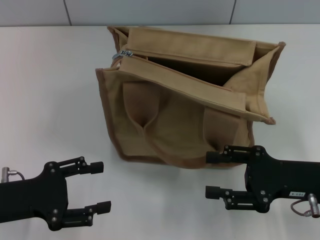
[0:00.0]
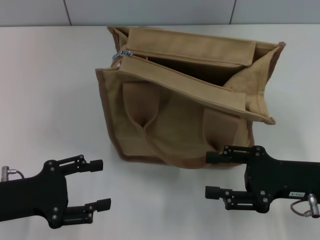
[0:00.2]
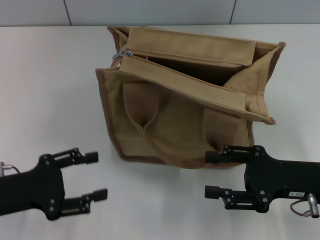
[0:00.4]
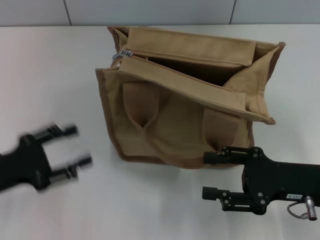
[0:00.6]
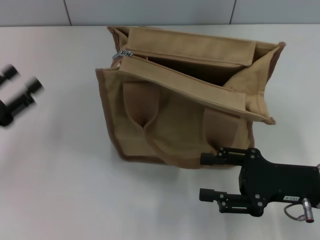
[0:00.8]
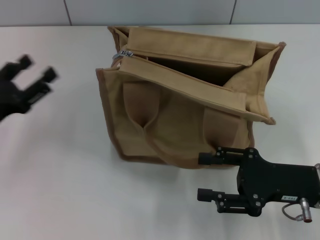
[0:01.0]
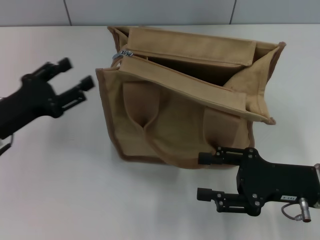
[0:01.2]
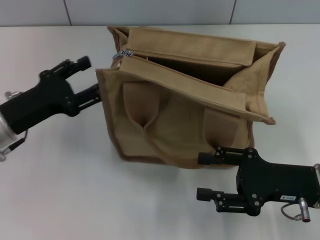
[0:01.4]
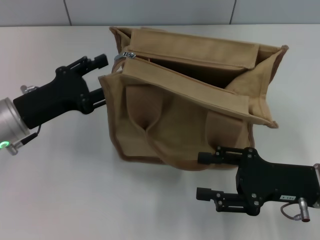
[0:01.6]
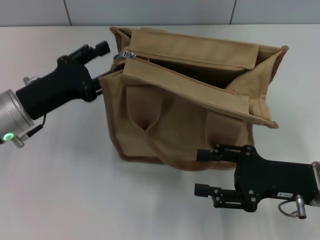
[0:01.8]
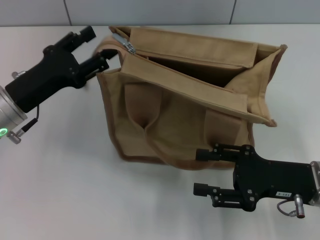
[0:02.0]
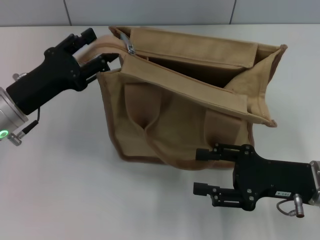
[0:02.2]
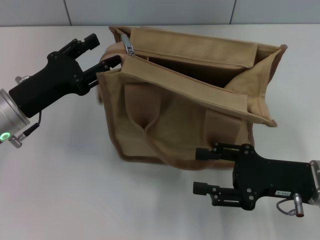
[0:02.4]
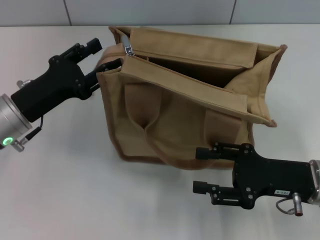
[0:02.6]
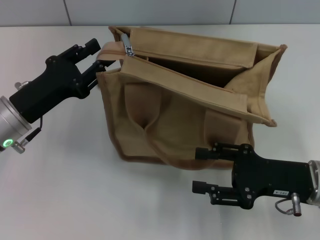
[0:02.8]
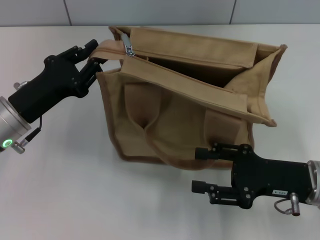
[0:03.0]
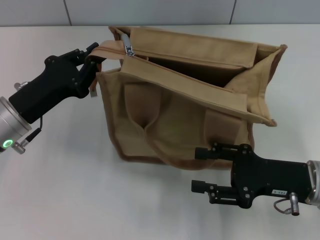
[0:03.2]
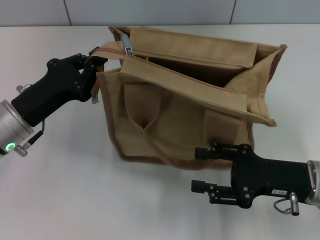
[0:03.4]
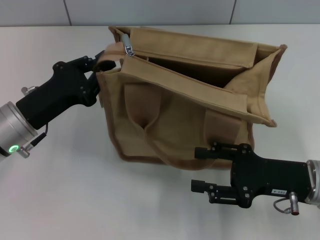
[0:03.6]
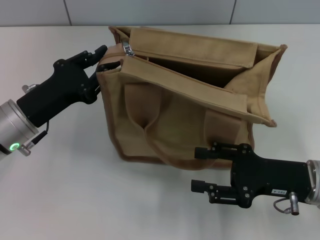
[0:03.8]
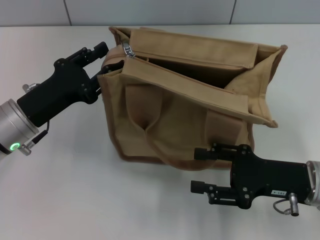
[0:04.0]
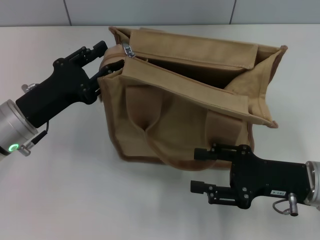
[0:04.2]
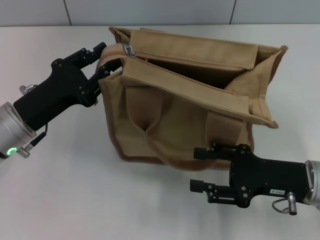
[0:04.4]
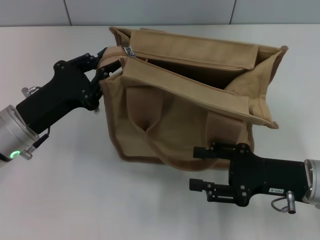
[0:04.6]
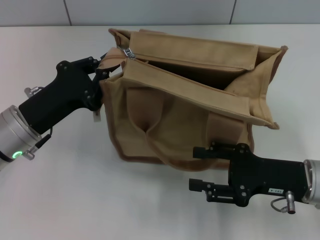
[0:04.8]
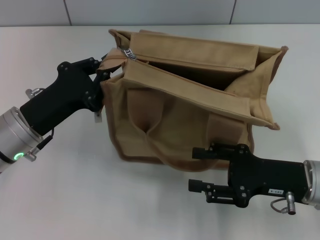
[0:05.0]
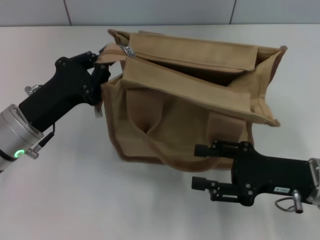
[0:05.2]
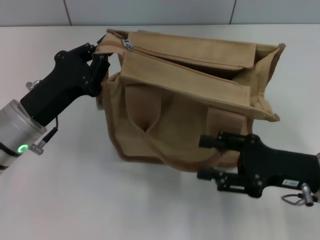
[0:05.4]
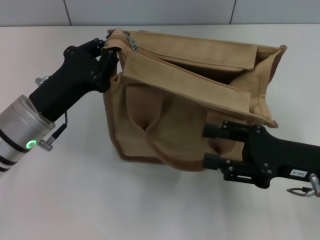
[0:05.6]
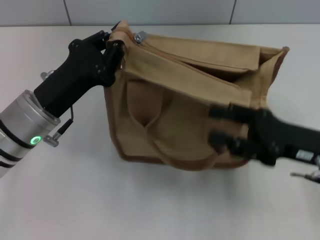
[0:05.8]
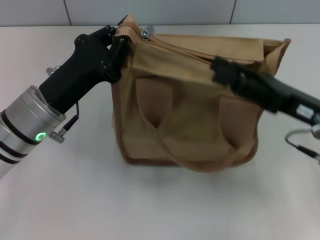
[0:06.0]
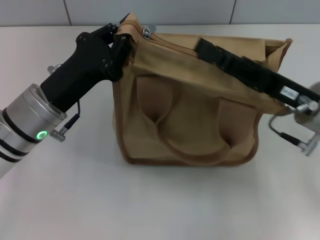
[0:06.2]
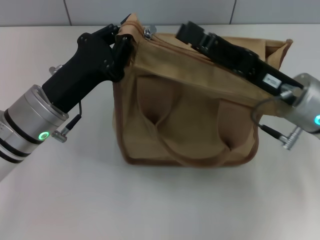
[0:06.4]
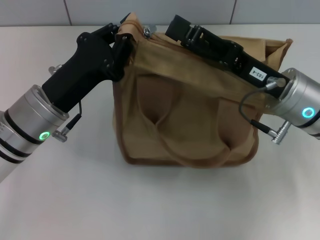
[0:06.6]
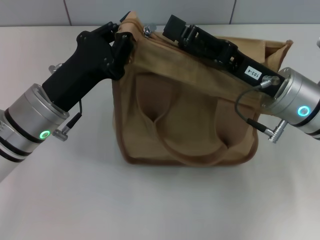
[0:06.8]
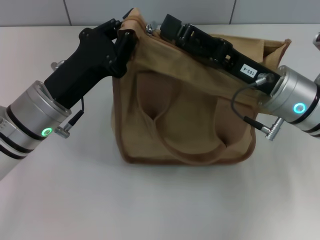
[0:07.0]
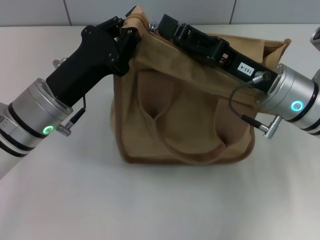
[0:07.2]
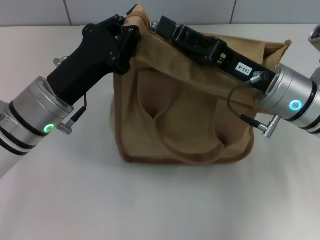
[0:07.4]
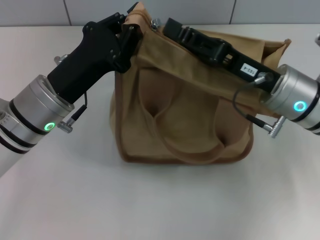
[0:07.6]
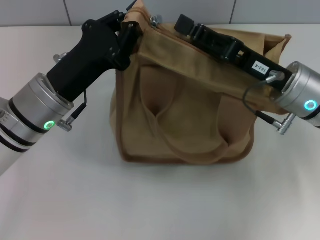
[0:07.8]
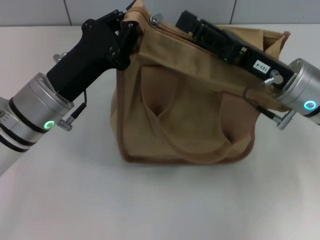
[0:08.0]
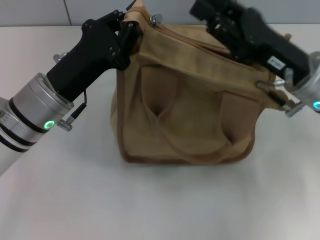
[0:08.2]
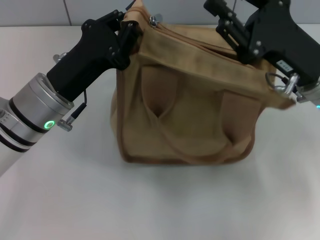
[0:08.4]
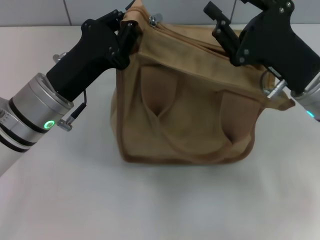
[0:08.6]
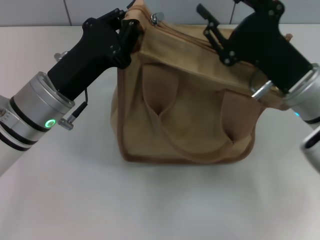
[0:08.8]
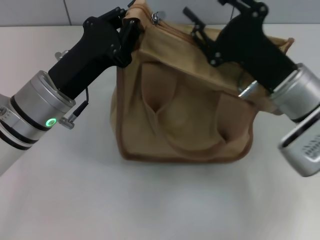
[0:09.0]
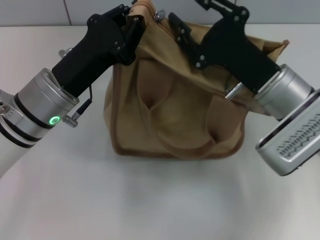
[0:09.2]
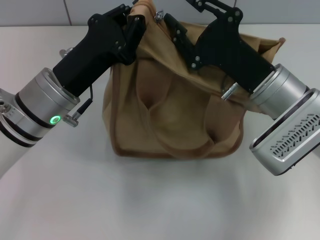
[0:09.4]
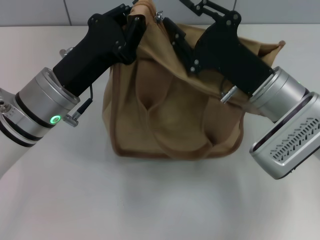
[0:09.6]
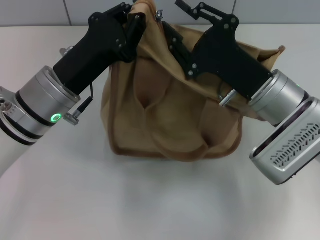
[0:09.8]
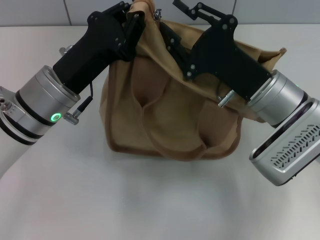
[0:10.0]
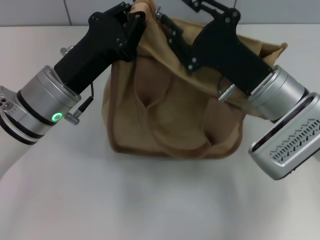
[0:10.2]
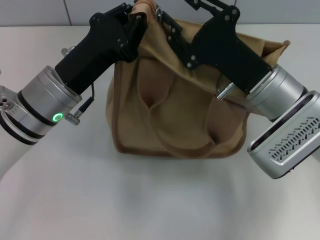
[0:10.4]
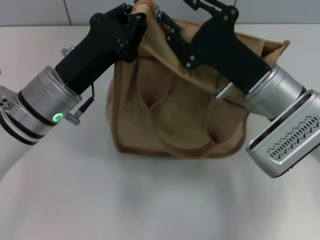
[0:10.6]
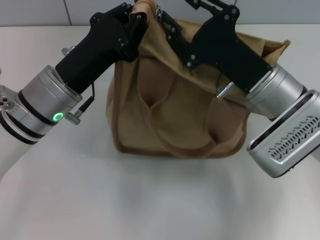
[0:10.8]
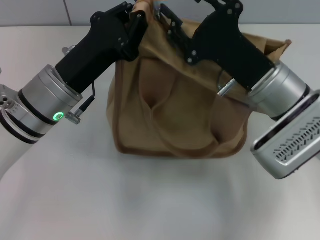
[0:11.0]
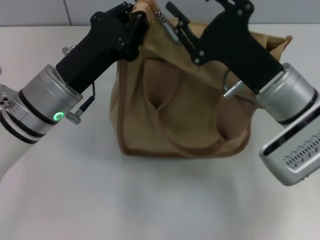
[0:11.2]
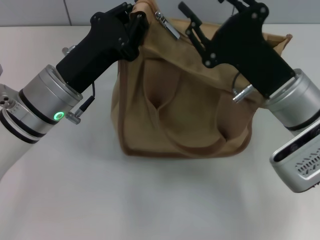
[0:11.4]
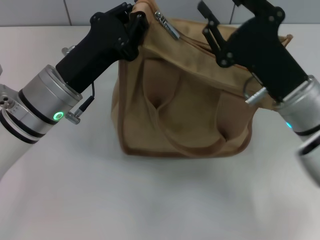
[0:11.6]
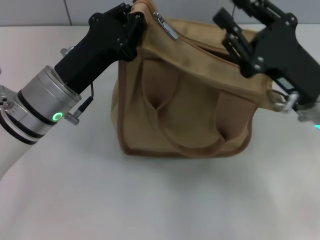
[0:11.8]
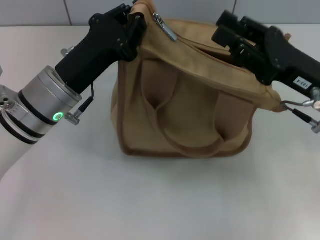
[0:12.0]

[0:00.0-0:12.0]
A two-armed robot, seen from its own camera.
0:00.0 to 0:01.6: The left gripper moves forward, approximately 10 cm.
0:01.6 to 0:03.0: The left gripper closes its fingers.
0:03.0 to 0:04.4: The left gripper closes, then reopens.
0:04.4 to 0:06.0: The left gripper closes its fingers. Meanwhile the right gripper goes some 5 cm upward.
0:06.0 to 0:07.6: The right gripper moves to the left, roughly 5 cm, and closes.
0:10.4 to 0:12.0: The right gripper goes roughly 10 cm to the right.

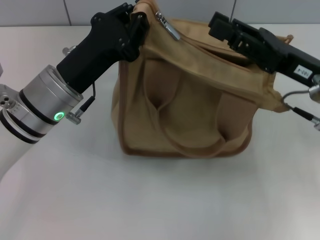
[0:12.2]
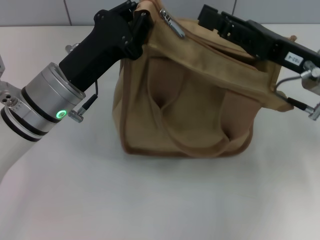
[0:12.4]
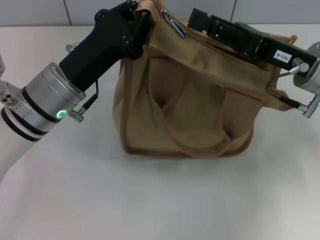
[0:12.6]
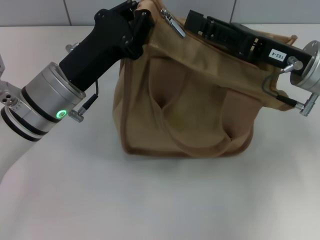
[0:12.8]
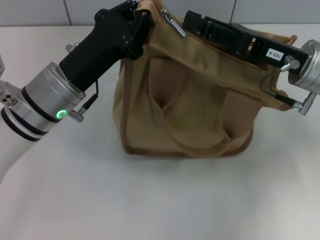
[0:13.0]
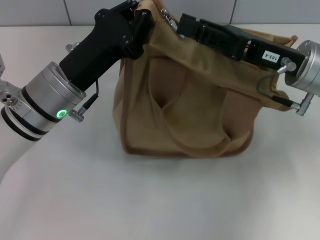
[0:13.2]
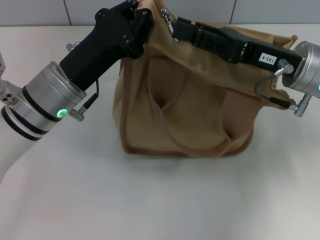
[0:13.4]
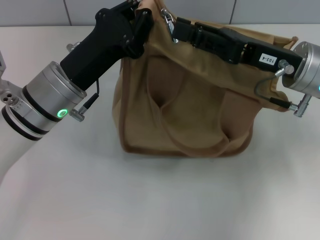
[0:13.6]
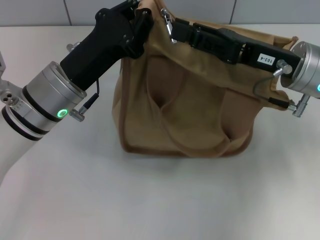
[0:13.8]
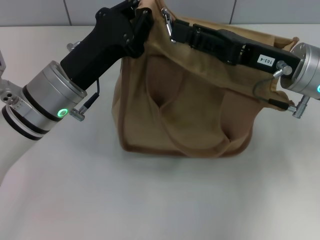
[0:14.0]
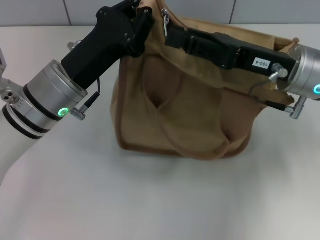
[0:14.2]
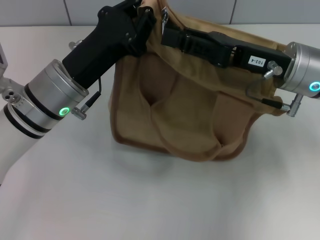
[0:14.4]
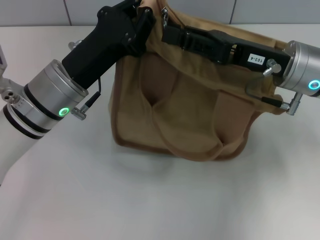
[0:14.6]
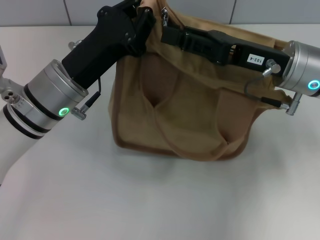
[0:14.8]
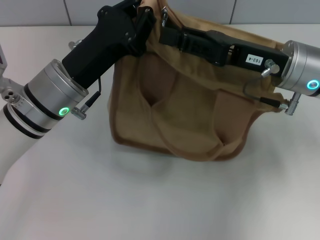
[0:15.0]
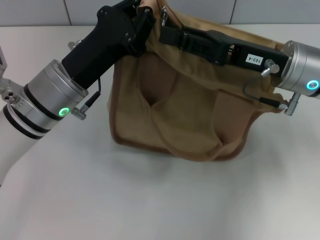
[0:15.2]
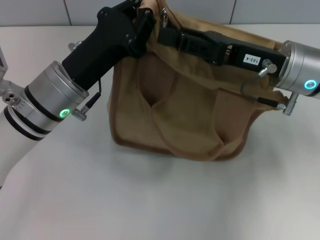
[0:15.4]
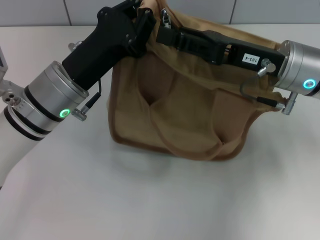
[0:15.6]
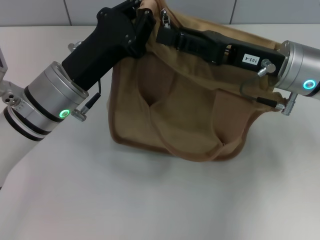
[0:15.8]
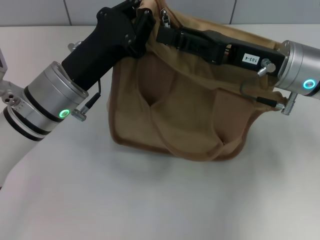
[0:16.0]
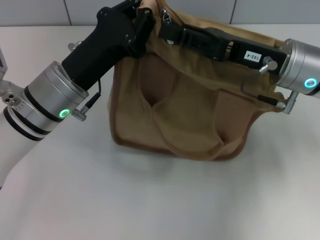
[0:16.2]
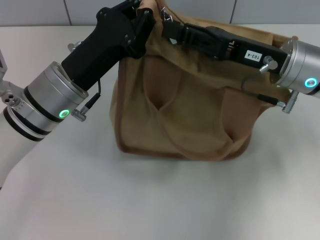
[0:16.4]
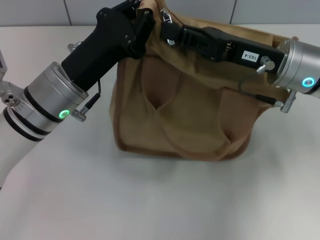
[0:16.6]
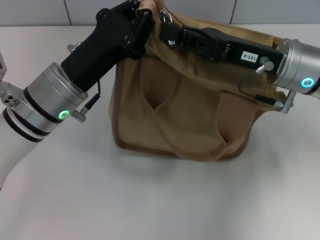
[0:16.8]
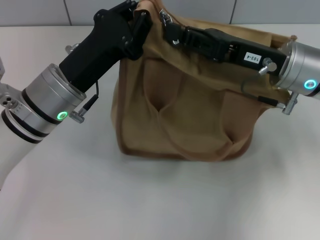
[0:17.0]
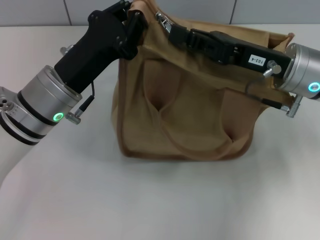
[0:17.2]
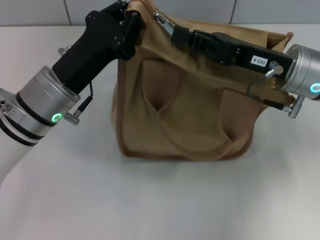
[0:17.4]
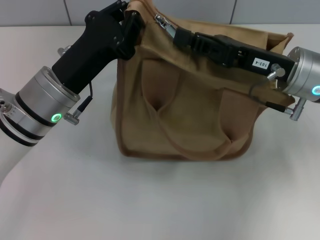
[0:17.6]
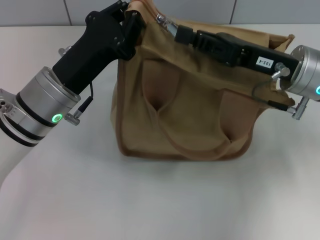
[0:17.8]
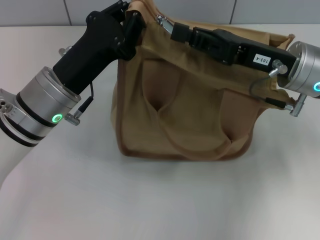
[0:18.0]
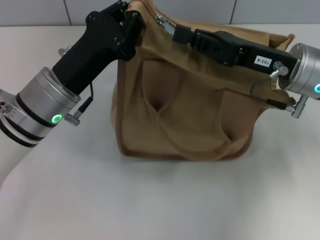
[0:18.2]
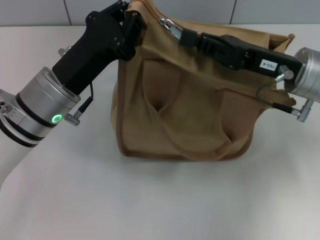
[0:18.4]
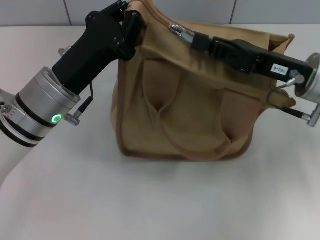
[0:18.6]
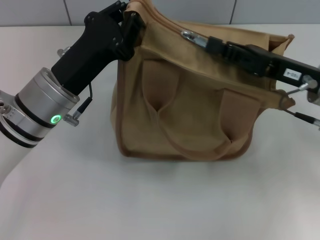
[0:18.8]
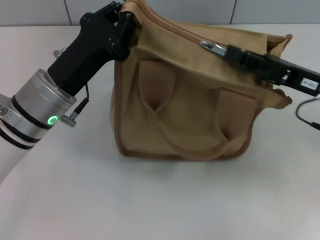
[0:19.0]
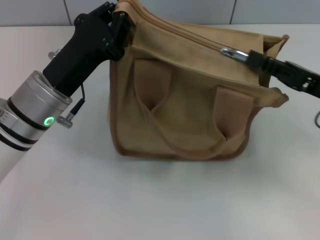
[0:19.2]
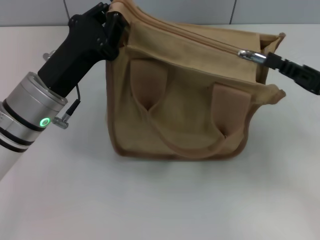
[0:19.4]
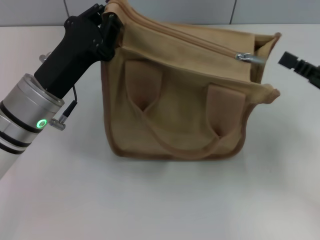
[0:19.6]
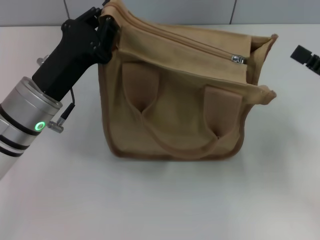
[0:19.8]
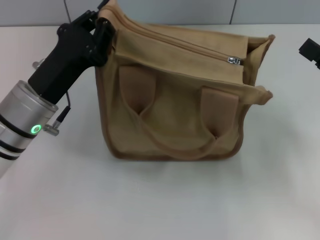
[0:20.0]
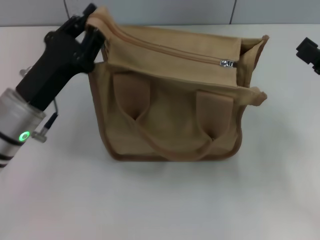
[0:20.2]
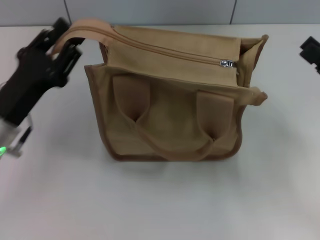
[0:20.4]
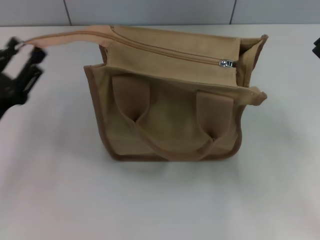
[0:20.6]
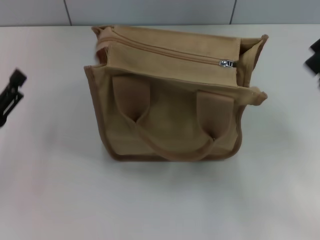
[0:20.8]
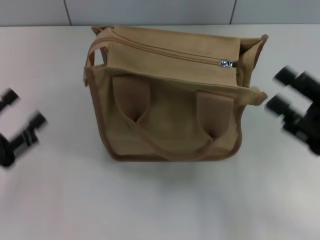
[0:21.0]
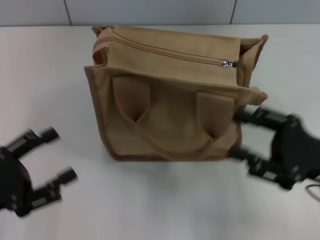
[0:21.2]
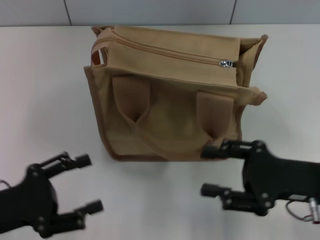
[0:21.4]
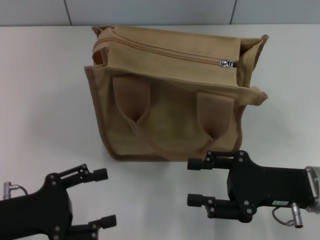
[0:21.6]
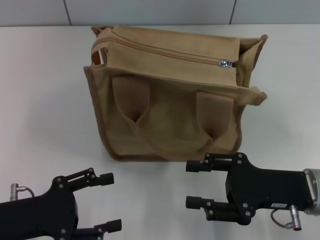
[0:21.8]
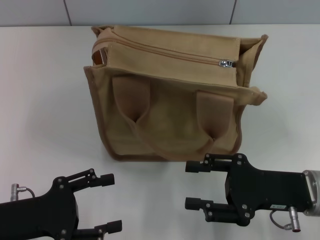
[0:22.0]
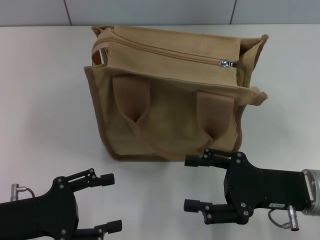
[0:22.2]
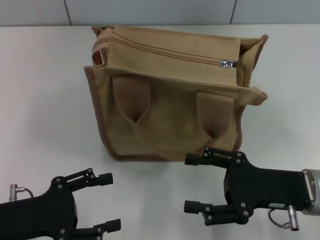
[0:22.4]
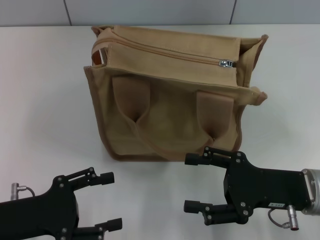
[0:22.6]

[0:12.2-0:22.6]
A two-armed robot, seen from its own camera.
Step, 0:12.2 to 0:19.4: Pull up the zipper with your right hand.
Step, 0:19.8 to 0:20.6: Grab the zipper with your left hand.
0:12.2 to 0:13.6: There are only small adjustments of the grippers.
0:13.6 to 0:15.2: Both grippers stay about where they are.
0:15.2 to 0:16.6: Both grippers stay put.
0:16.6 to 0:18.2: The grippers stay close to where they were, moving slightly.
0:18.2 to 0:19.6: The right gripper shifts some 15 cm to the right and backward.
0:19.6 to 0:21.2: The right gripper goes approximately 5 cm to the left, and opens its fingers, while the left gripper is displaced backward and to the left by some 20 cm, and opens up.
